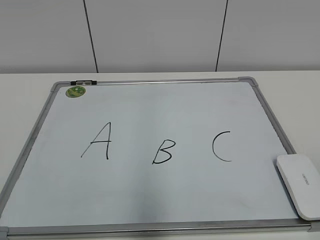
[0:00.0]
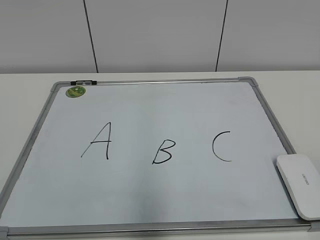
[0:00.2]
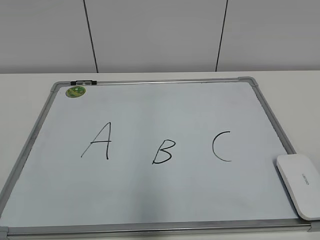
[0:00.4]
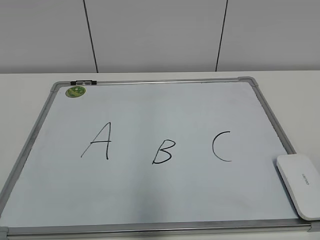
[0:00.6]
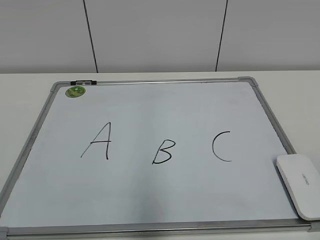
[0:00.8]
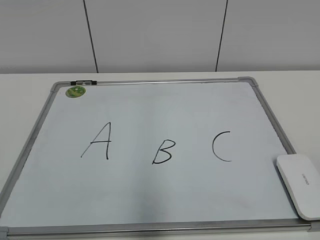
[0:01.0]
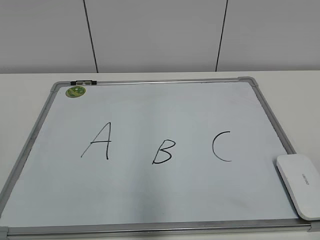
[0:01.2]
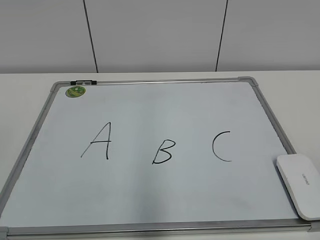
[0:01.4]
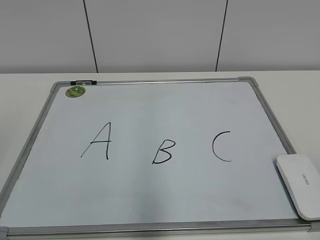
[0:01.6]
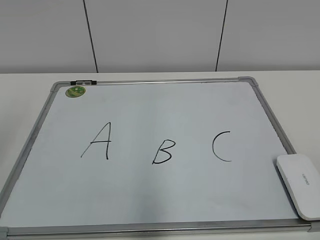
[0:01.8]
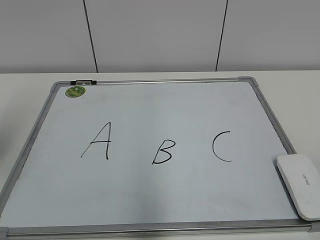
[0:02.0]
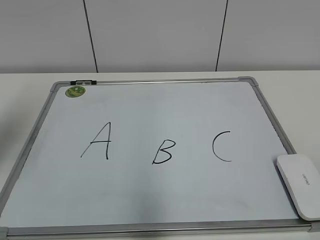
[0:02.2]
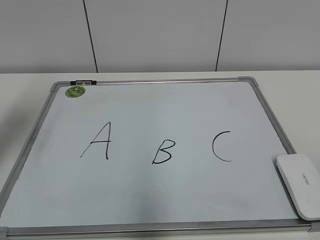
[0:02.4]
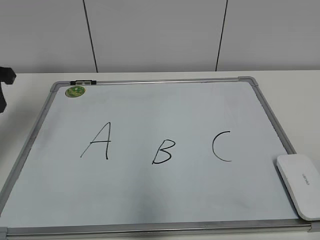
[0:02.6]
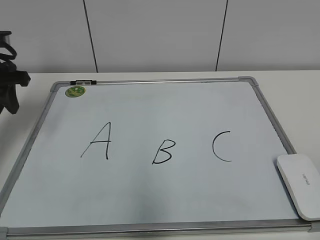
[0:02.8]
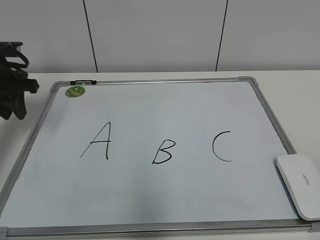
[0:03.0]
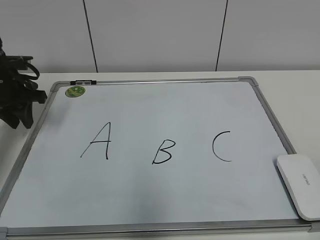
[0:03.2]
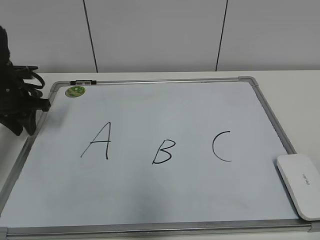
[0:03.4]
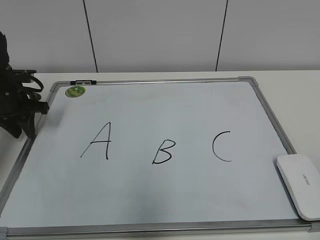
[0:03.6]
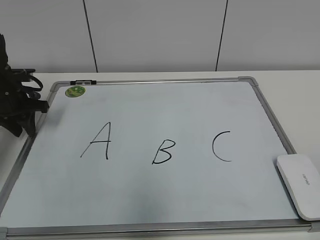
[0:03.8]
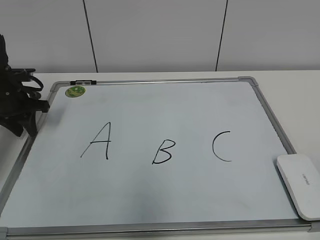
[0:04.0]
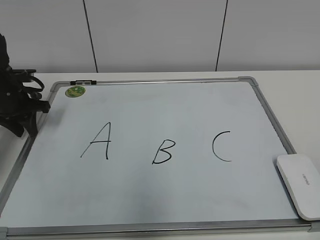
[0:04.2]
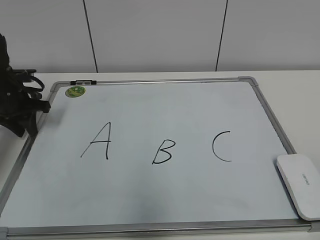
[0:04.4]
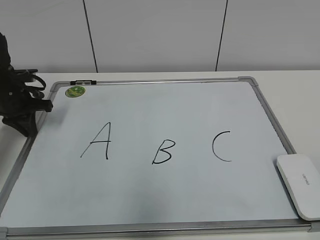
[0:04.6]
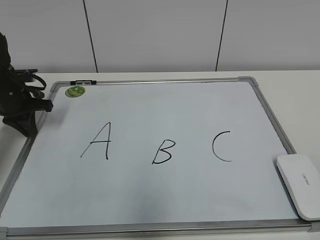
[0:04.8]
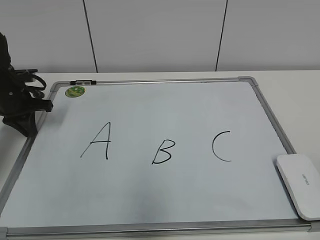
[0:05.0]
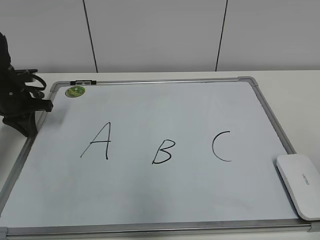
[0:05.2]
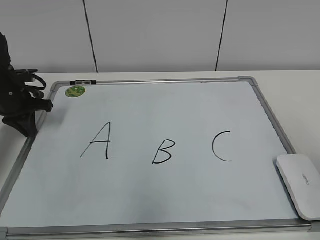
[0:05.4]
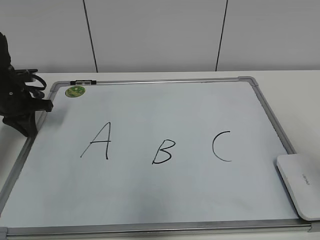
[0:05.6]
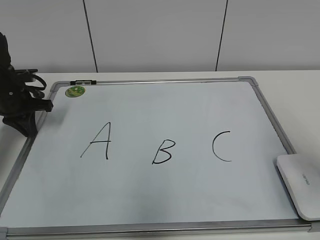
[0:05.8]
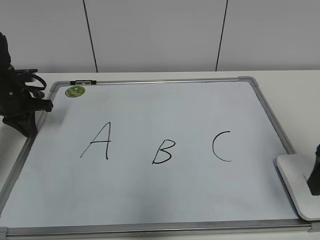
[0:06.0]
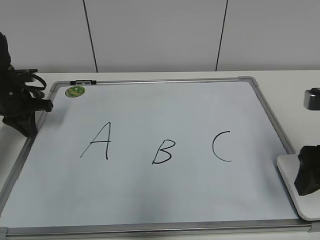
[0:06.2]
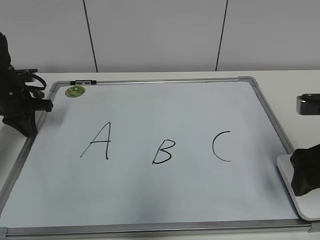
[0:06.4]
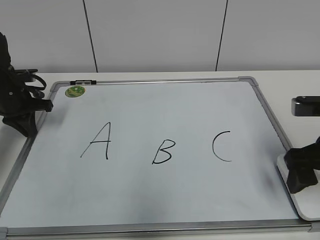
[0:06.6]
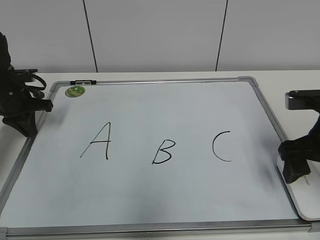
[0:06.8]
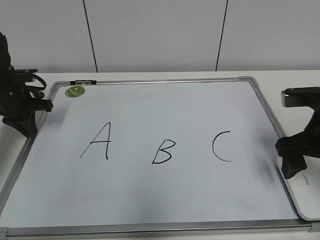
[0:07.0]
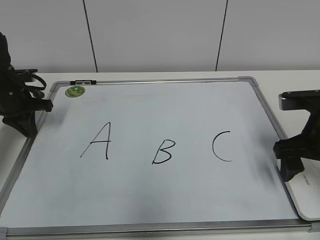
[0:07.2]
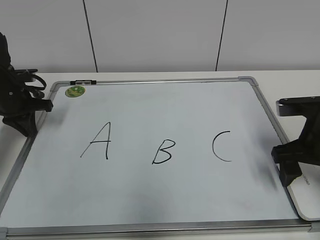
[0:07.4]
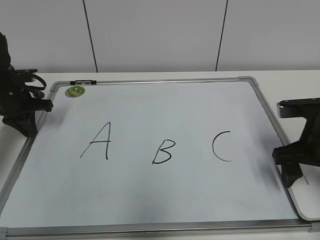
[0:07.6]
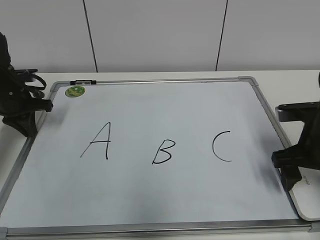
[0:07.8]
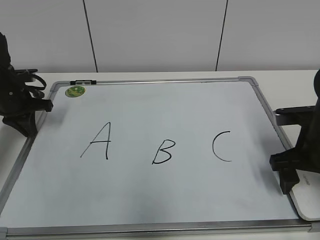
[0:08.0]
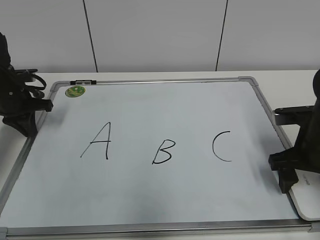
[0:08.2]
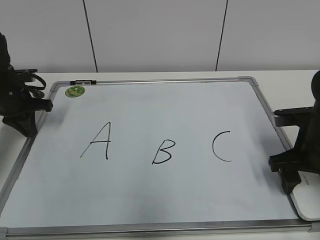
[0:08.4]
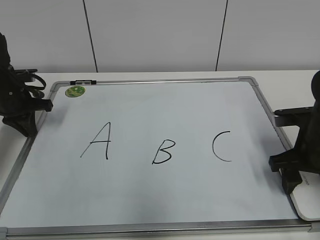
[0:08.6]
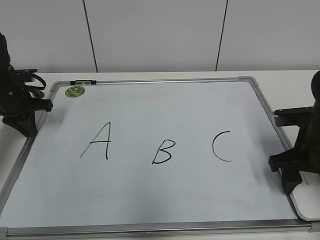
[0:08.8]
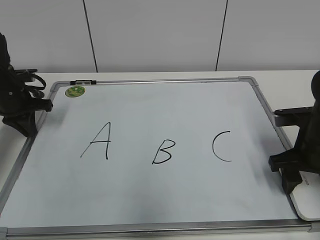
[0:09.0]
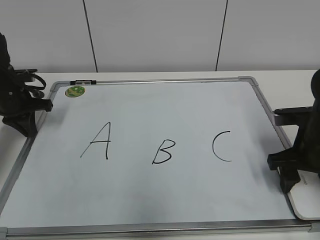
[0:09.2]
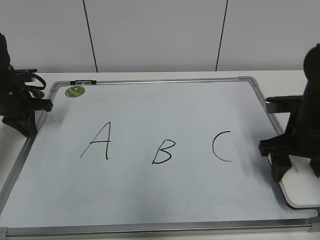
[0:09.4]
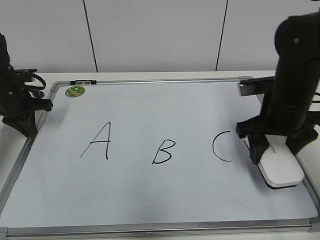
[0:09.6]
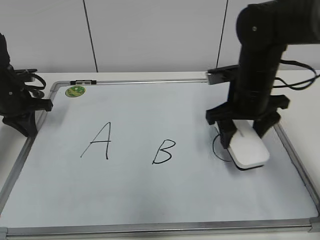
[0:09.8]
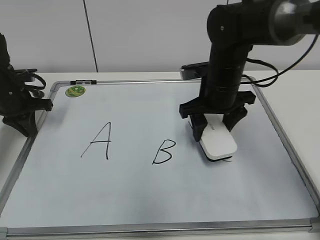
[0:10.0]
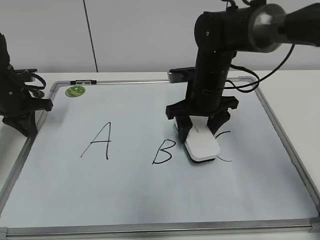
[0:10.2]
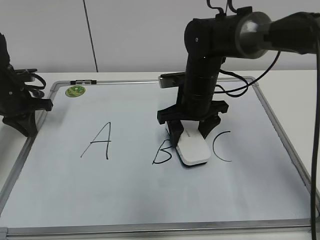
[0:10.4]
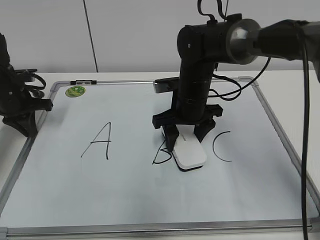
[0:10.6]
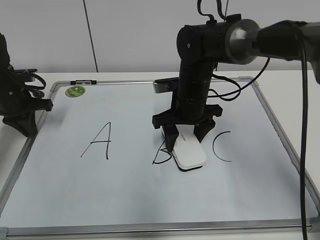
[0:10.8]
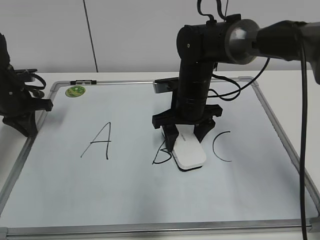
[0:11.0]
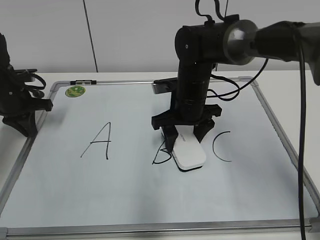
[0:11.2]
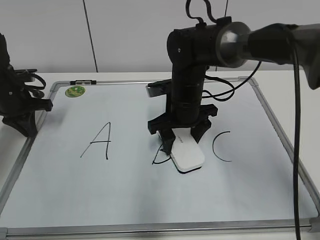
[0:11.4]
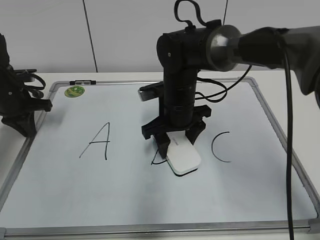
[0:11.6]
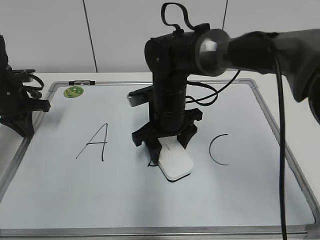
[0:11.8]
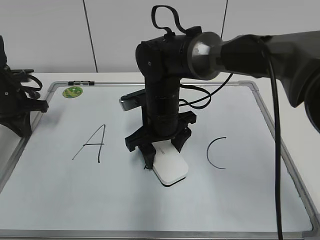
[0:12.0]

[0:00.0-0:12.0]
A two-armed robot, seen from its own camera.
Task of the whole recording: pick up the eraser on the blackboard and erase the letter "B".
Step, 0:00.0 to 0:04.6: Hold the drawing board steady with your left hand.
Step, 0:04.8 to 0:09.0: Grab the eraser with your right hand.
0:01.6 to 0:03.0: The left gripper shifts about 35 cm forward and downward.
0:03.0 to 0:04.4: The left gripper shifts some 5 cm downward.
0:04.4 to 0:06.0: The right gripper heads forward, covering about 20 cm, and opens; the left gripper closes up.
0:06.0 to 0:07.6: The right gripper moves forward and downward, roughly 10 cm.
0:07.6 to 0:09.0: The right gripper closes its fingers.
0:09.0 to 0:10.4: The right gripper moves to the left and forward, some 20 cm.
0:10.4 to 0:12.0: The right gripper is displaced to the left by some 5 cm.

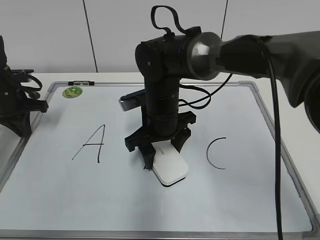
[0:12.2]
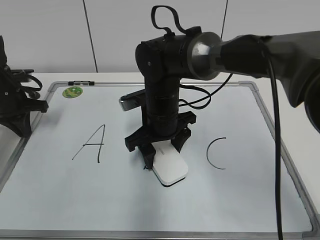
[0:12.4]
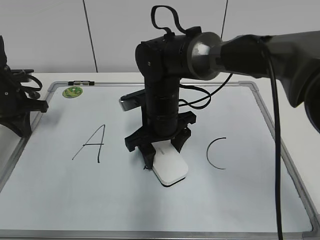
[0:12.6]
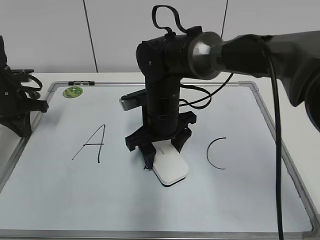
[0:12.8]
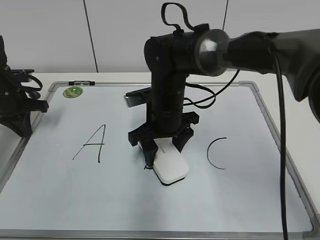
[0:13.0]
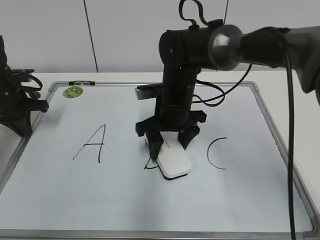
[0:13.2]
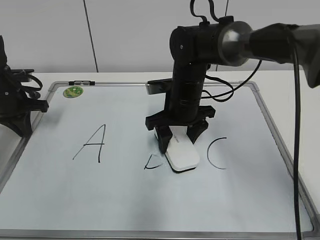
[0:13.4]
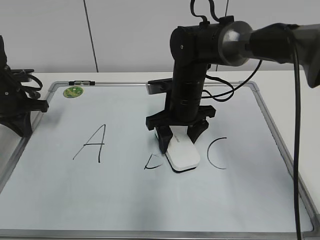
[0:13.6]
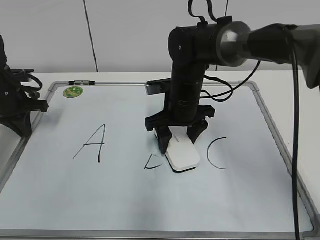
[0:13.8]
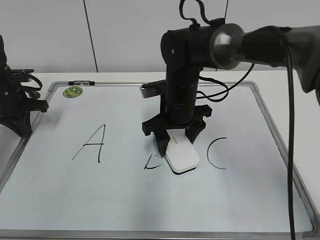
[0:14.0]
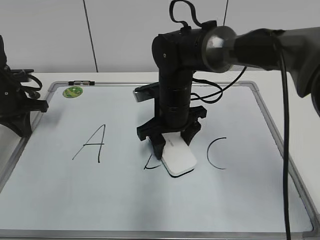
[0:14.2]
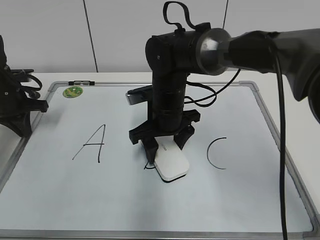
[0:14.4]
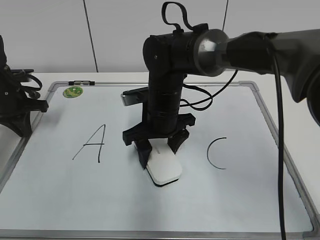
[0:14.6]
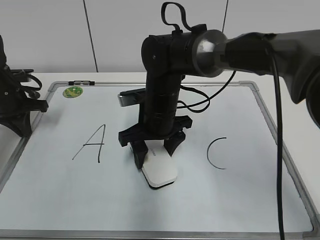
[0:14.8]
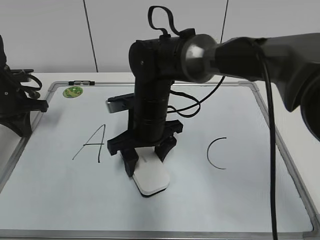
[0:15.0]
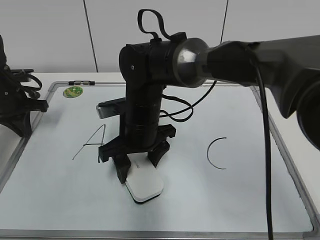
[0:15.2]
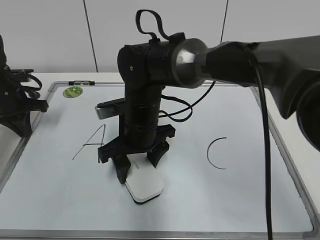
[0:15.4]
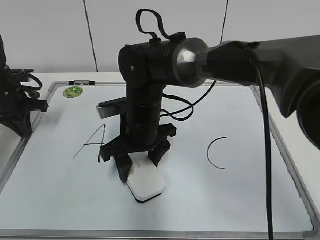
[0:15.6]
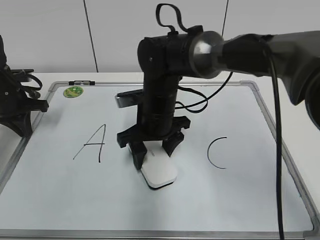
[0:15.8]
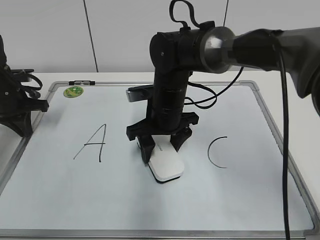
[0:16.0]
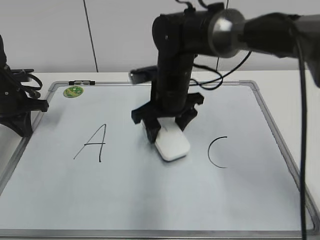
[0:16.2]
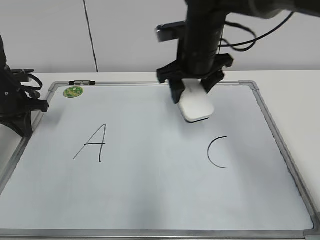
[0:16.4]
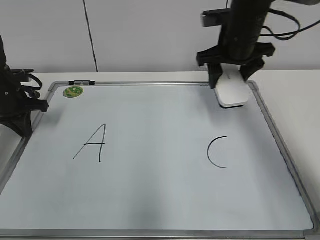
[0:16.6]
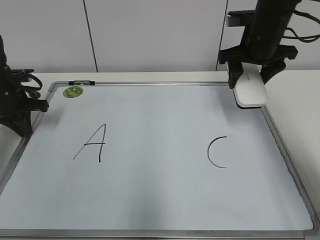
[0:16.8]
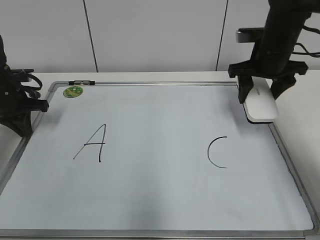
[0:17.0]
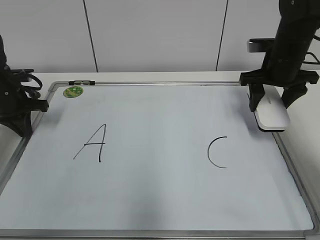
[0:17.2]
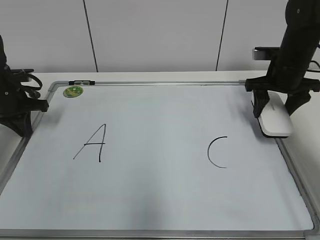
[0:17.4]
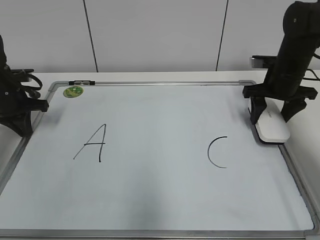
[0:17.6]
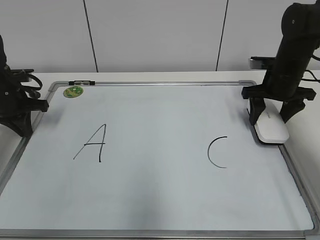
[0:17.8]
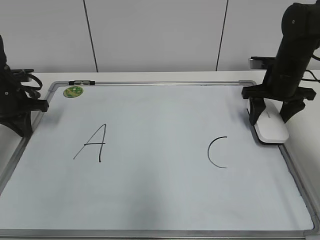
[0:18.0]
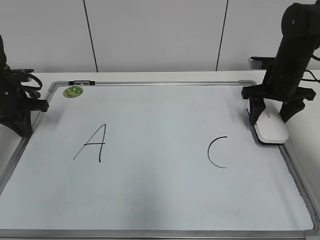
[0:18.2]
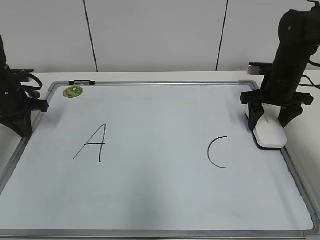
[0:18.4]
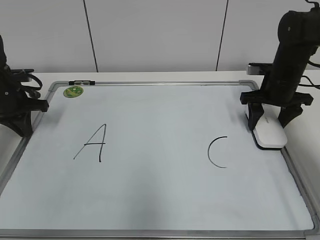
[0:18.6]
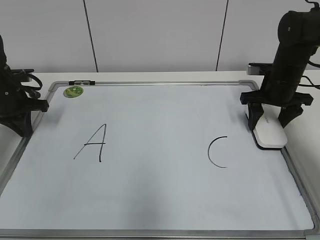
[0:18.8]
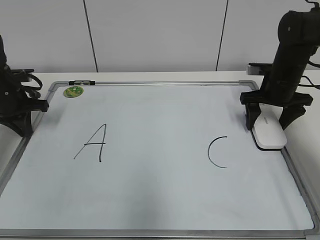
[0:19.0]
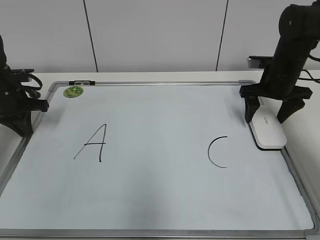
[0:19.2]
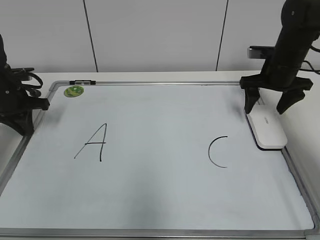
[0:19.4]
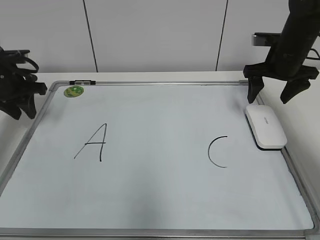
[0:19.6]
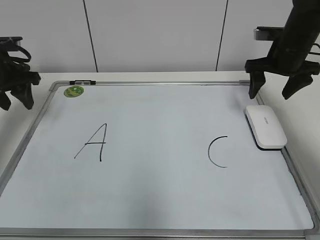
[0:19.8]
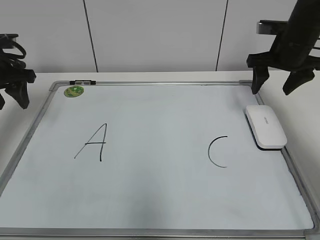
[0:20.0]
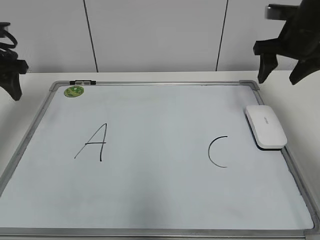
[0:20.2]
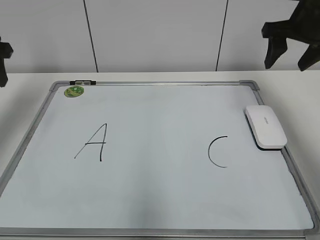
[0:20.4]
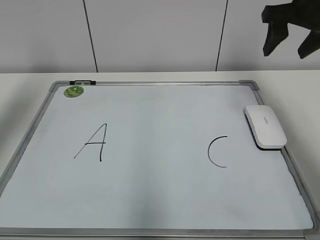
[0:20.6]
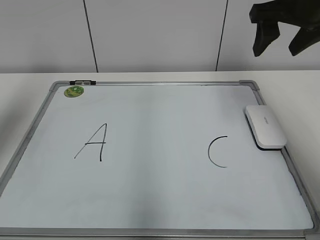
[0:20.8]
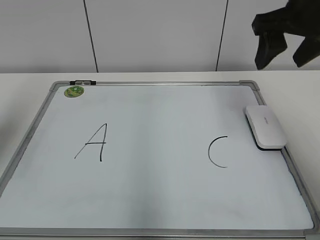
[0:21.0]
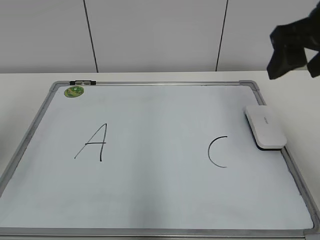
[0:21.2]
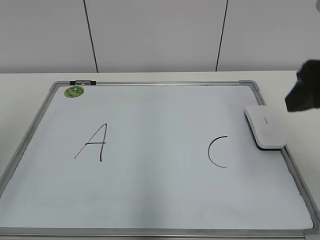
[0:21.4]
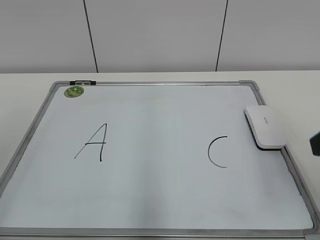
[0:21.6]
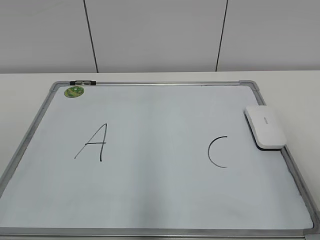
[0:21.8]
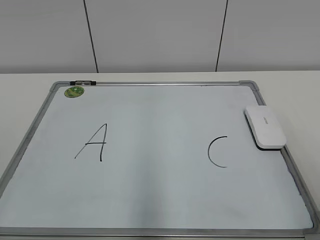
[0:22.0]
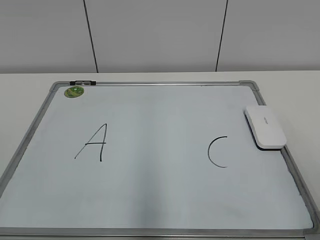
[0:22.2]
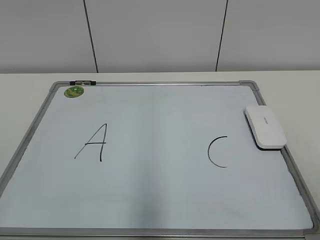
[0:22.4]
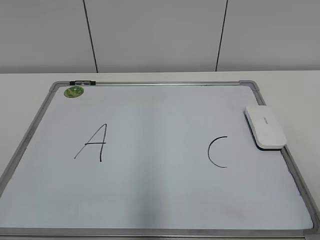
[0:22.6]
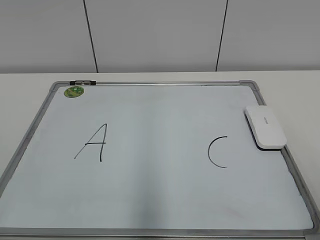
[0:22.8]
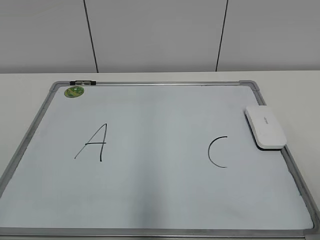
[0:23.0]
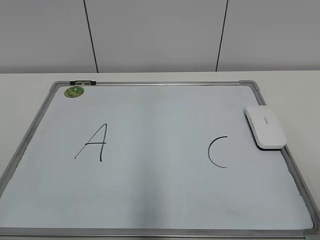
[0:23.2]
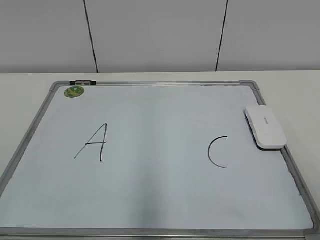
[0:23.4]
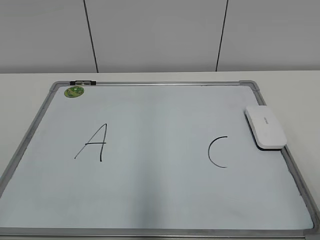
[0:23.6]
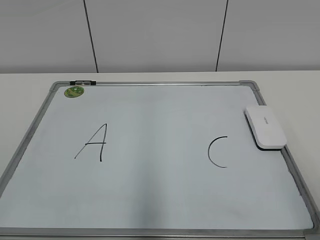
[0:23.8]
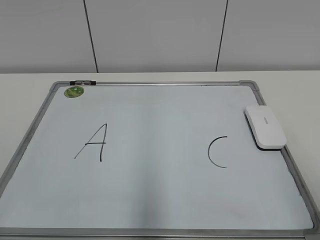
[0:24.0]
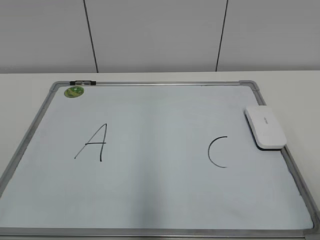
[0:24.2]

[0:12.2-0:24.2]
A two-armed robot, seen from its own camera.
Task of the whole recording: pick up the eraser on the blackboard and erase the letter "B".
Step, 0:12.2 to 0:15.6: Erase the letter B with your right hand.
Step, 0:15.8 to 0:18.8: Put down the eraser with your right hand.
0:12.2 to 0:13.8: The right gripper ends up some 5 cm from where it was.
0:13.8 to 0:15.2: The right gripper travels to the left and backward by approximately 10 cm.
0:15.2 to 0:16.6: The right gripper is displaced to the right, upward and forward by some 25 cm.
0:16.6 to 0:18.2: The right gripper travels to the right and downward by some 15 cm.
0:18.2 to 0:19.8: Both grippers move upward, about 5 cm. The left gripper opens up. Meanwhile the right gripper opens up.
0:19.8 to 0:21.2: The grippers both shift backward and upward by roughly 25 cm. The right gripper closes.
0:21.2 to 0:22.6: The right gripper travels backward by some 25 cm.
